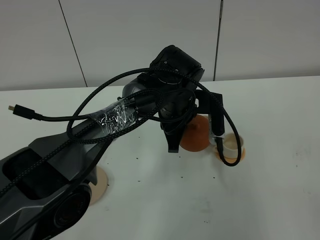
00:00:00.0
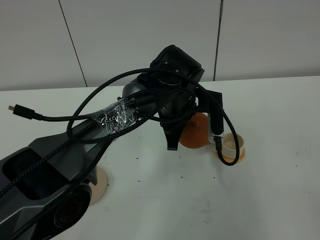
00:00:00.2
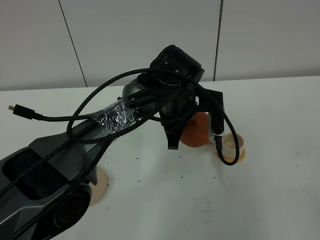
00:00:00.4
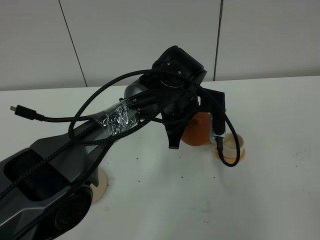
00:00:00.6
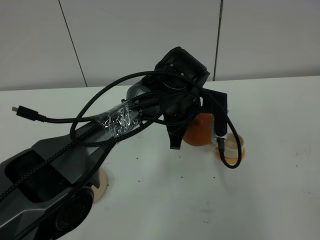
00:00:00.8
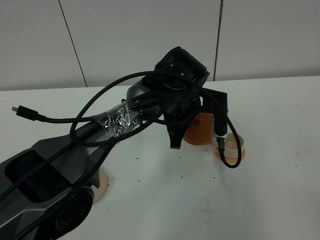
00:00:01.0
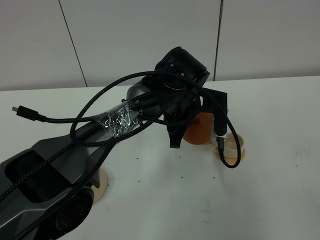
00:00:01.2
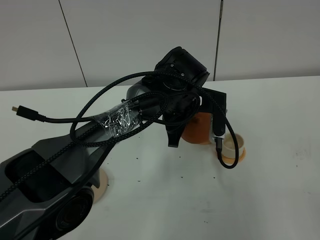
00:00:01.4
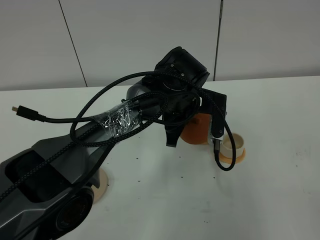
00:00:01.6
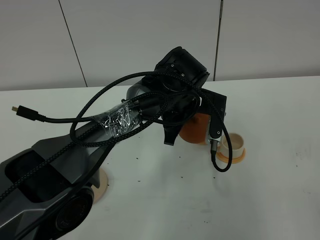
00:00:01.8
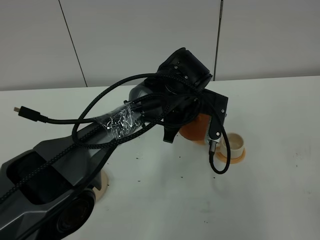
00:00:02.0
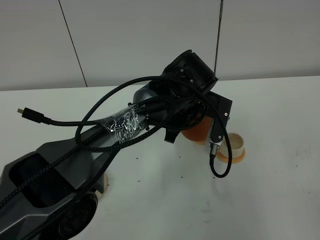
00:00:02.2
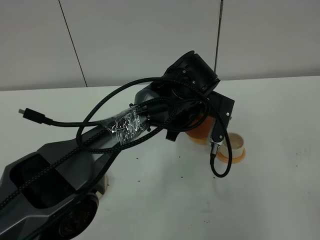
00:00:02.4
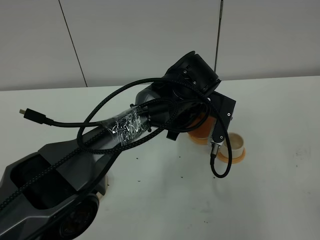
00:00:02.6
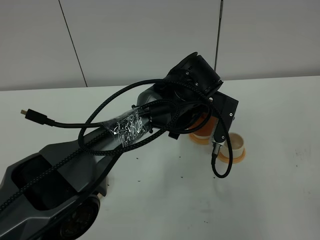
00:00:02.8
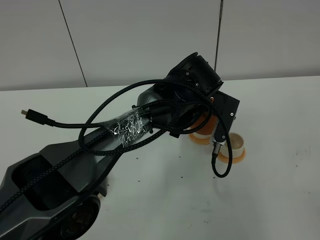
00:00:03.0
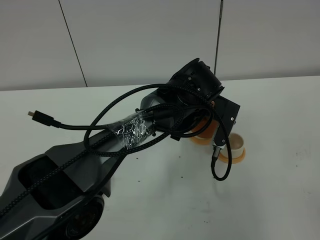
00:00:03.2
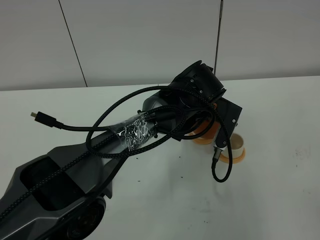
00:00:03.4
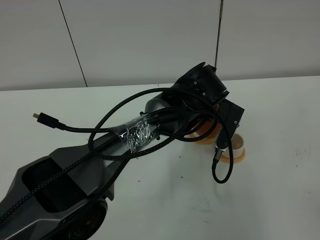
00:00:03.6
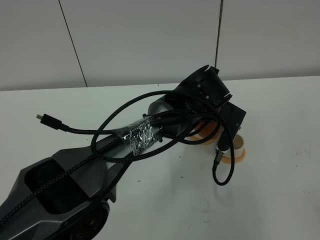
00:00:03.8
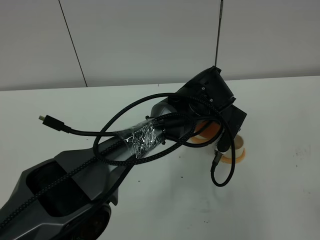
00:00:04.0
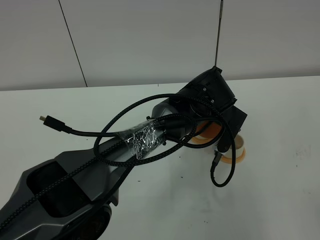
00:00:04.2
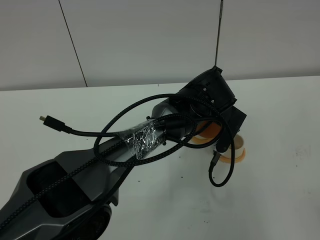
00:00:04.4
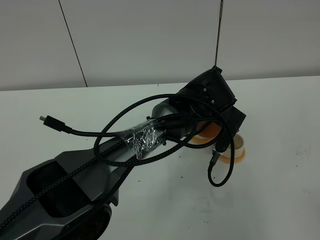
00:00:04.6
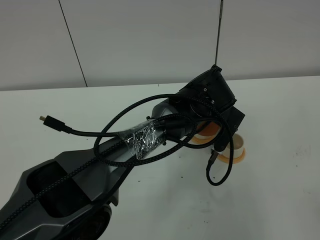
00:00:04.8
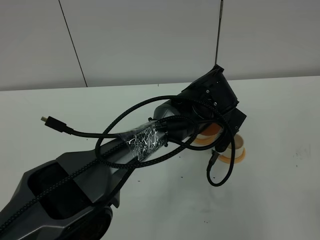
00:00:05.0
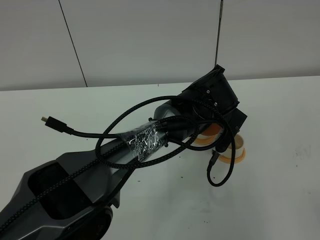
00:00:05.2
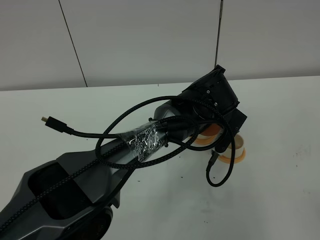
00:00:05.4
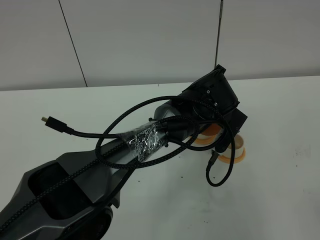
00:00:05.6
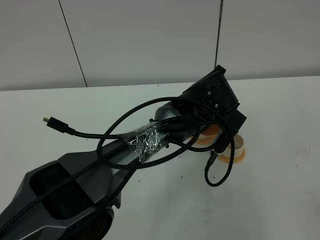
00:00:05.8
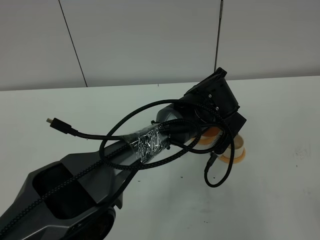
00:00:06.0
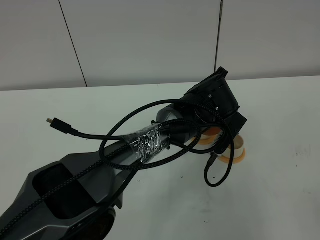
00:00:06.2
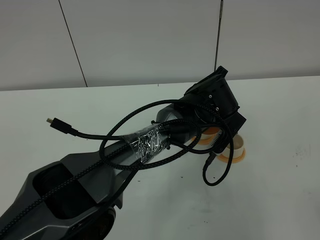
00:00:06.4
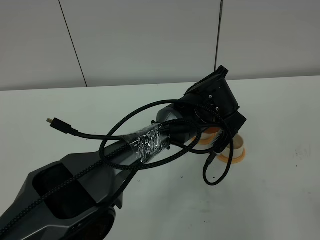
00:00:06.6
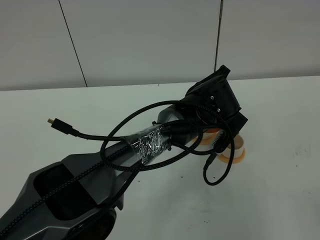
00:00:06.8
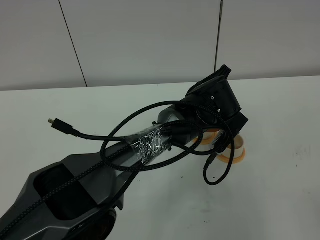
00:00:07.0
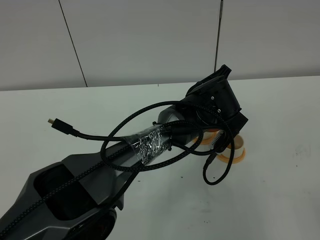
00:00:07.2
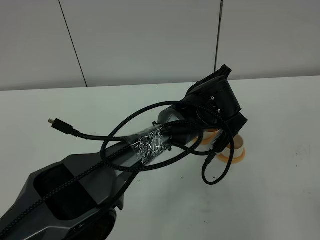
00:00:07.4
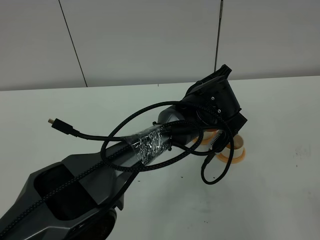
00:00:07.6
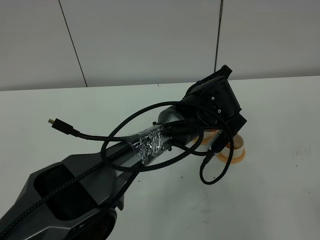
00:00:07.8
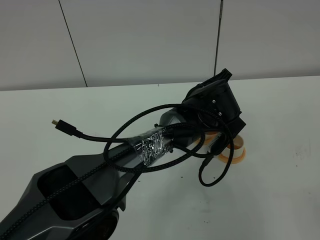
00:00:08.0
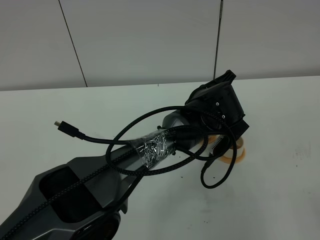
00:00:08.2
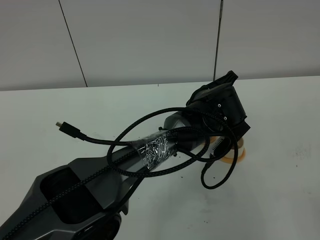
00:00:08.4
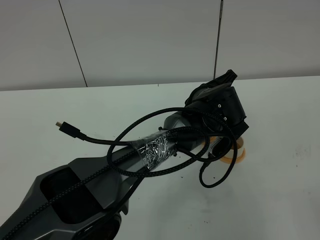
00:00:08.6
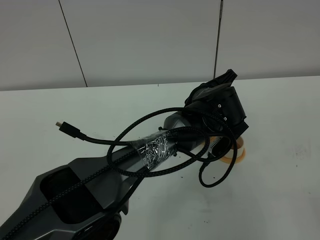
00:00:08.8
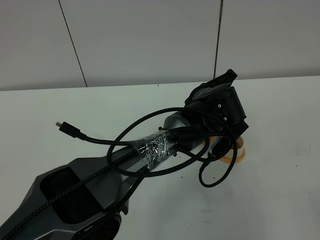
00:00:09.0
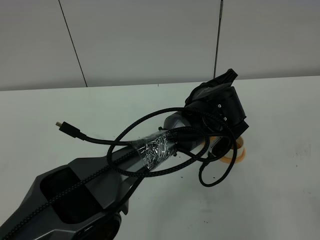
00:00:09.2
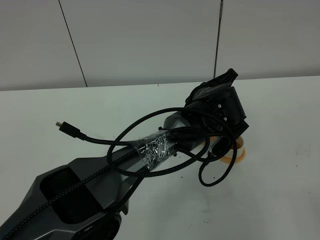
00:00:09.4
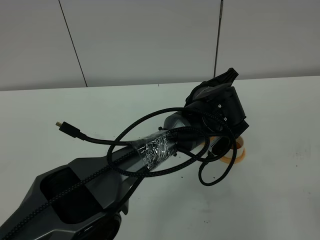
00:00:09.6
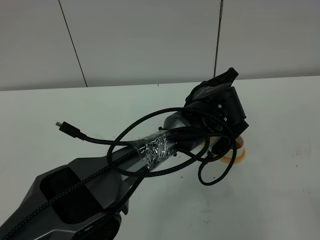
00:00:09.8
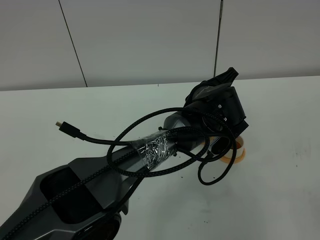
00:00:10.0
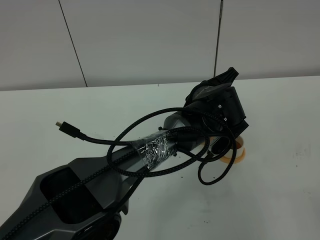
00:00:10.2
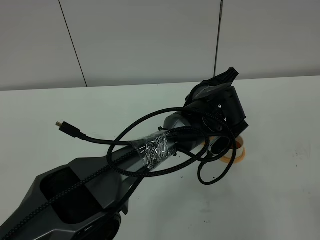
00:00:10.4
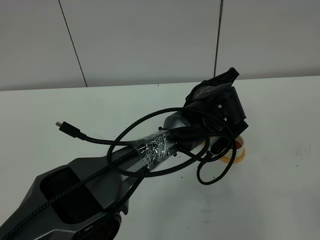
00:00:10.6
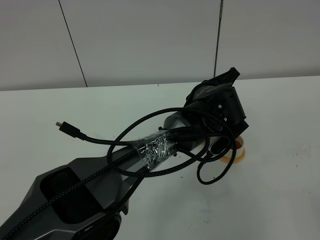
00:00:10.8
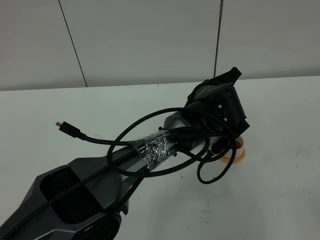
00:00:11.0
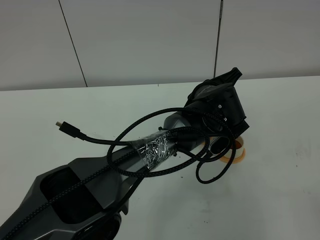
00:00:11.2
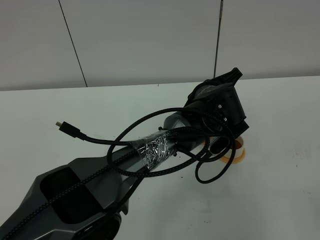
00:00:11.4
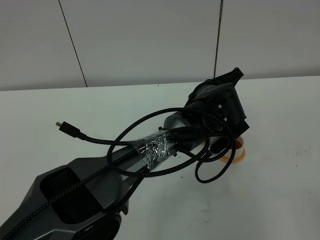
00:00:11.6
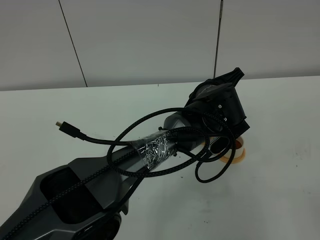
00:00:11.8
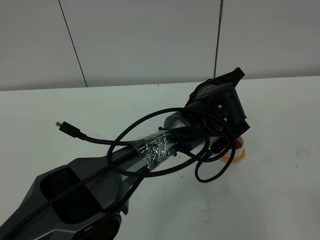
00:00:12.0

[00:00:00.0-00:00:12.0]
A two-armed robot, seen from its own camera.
Task of the whole recording: grasp the brown teapot and pour the tea into the two white teacups one by one, put the brown teapot back in its original place.
00:00:00.0 to 00:00:01.6: There are only small adjustments of the grippers.
00:00:01.6 to 00:00:03.0: The grippers stay close to where they were, moving slightly.
00:00:03.0 to 00:00:06.0: The grippers make only small movements.
00:00:06.0 to 00:00:09.0: There are only small adjustments of the grippers.
00:00:09.0 to 00:00:10.4: Neither gripper changes place.
00:00:10.4 to 00:00:12.0: Both grippers stay about where they are.

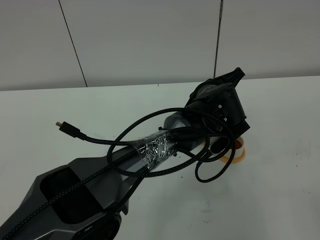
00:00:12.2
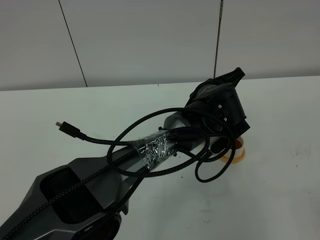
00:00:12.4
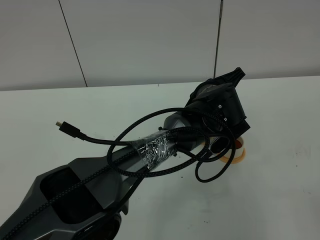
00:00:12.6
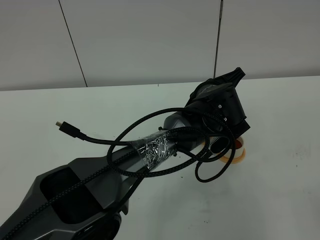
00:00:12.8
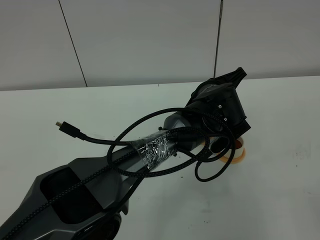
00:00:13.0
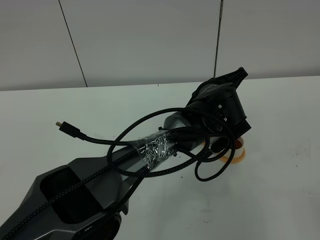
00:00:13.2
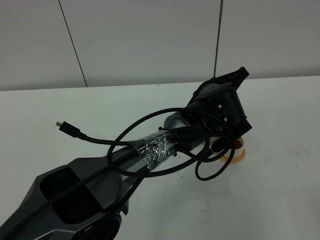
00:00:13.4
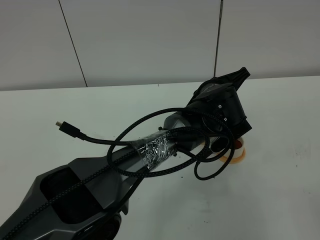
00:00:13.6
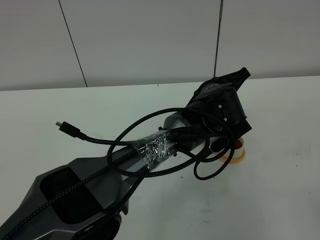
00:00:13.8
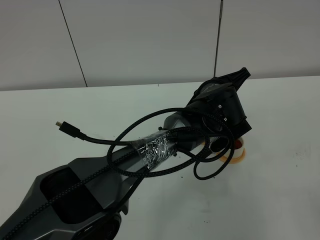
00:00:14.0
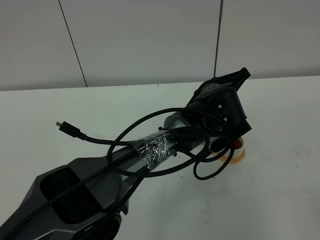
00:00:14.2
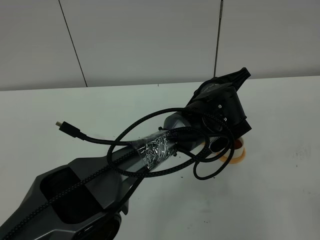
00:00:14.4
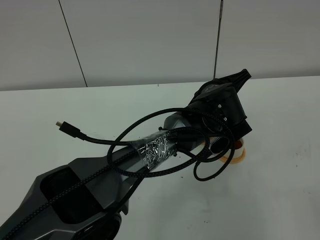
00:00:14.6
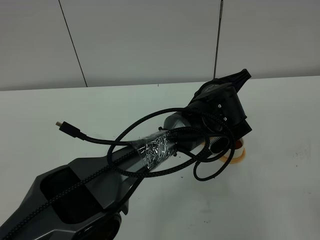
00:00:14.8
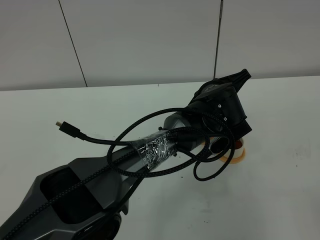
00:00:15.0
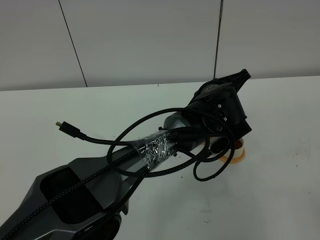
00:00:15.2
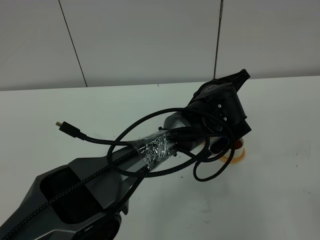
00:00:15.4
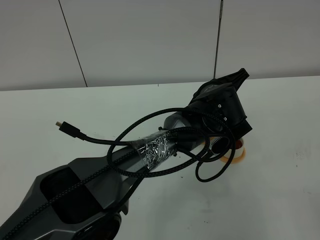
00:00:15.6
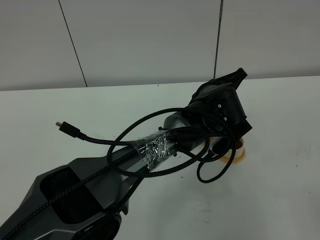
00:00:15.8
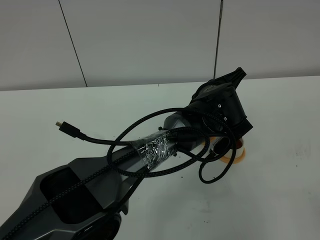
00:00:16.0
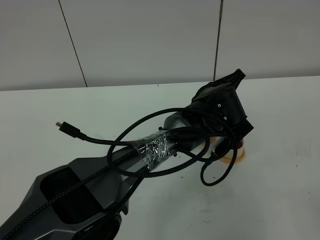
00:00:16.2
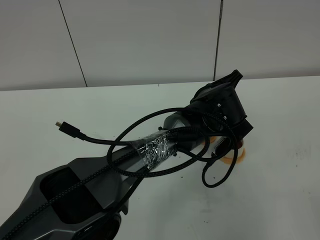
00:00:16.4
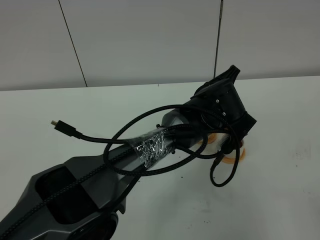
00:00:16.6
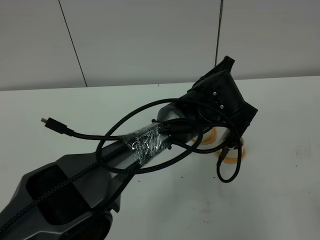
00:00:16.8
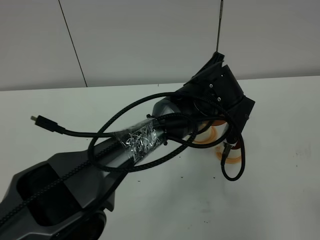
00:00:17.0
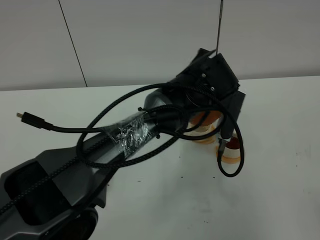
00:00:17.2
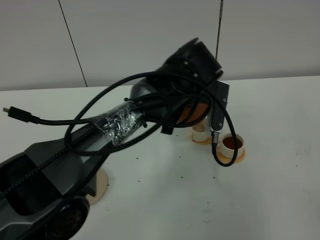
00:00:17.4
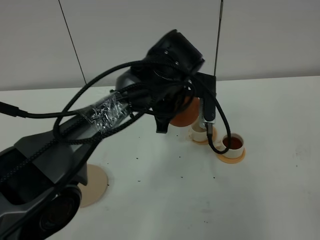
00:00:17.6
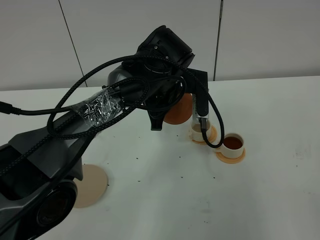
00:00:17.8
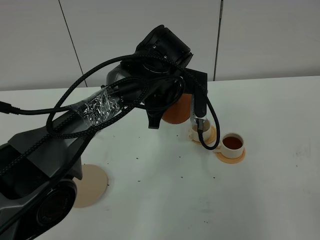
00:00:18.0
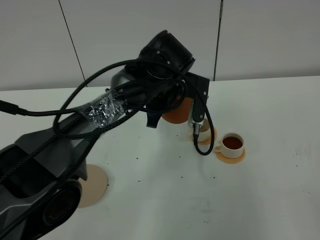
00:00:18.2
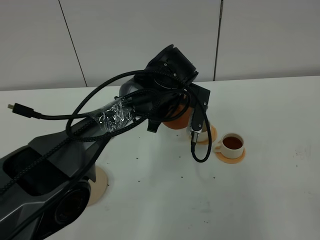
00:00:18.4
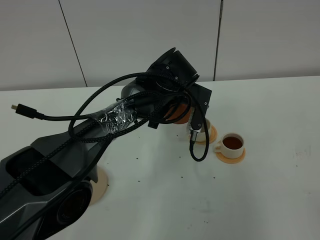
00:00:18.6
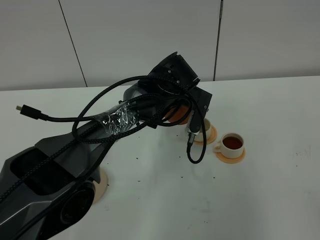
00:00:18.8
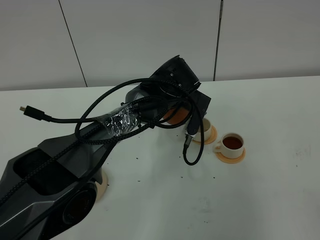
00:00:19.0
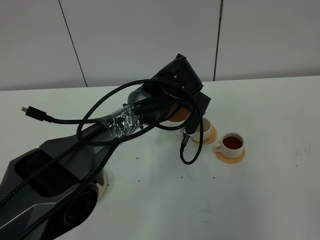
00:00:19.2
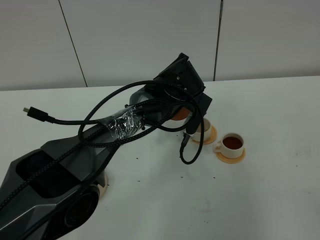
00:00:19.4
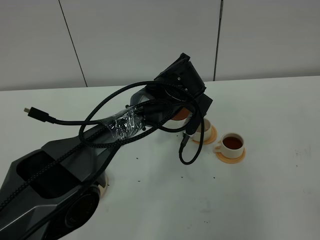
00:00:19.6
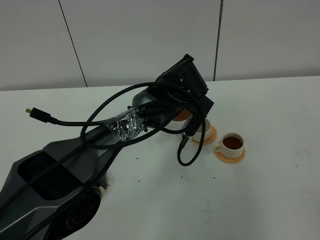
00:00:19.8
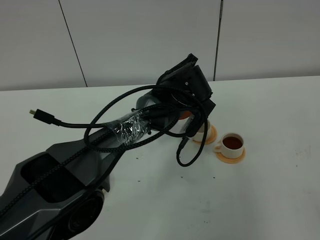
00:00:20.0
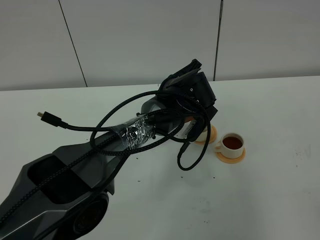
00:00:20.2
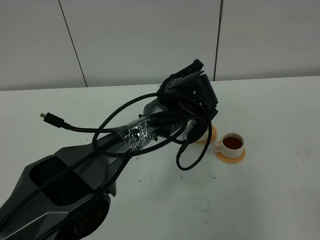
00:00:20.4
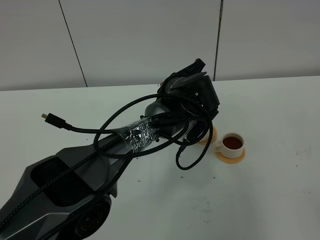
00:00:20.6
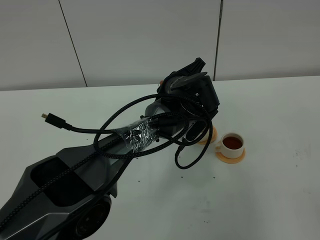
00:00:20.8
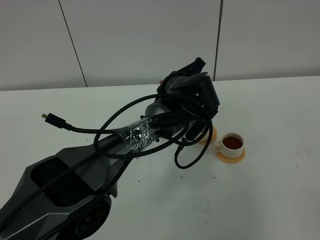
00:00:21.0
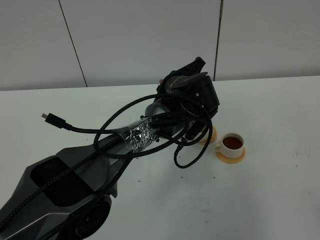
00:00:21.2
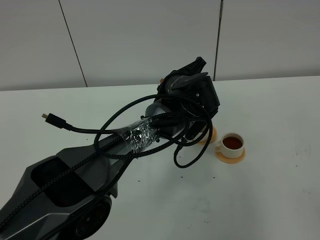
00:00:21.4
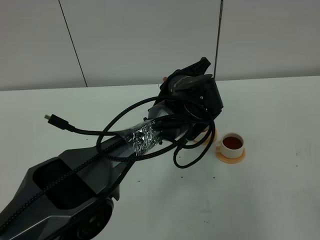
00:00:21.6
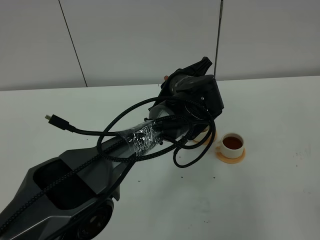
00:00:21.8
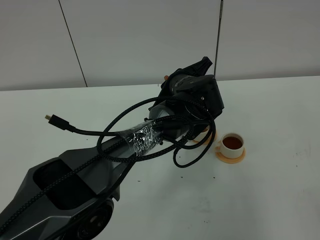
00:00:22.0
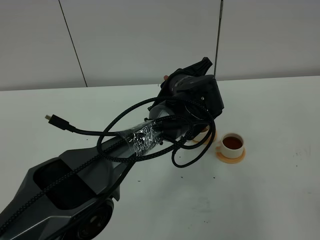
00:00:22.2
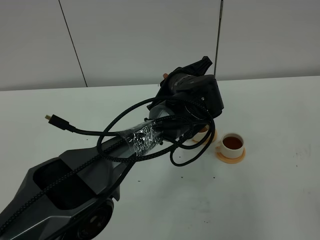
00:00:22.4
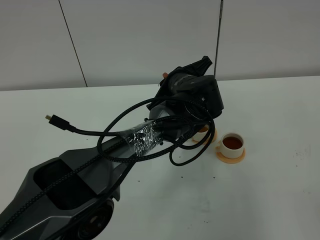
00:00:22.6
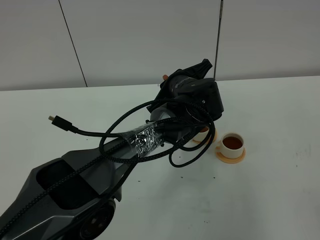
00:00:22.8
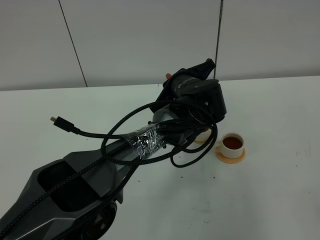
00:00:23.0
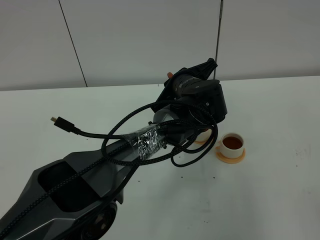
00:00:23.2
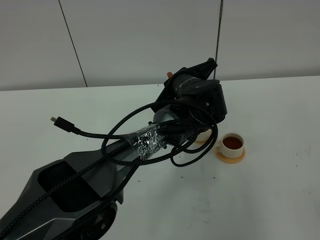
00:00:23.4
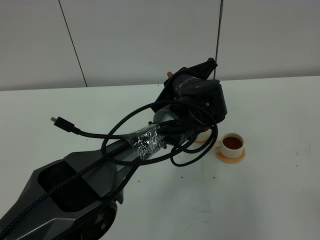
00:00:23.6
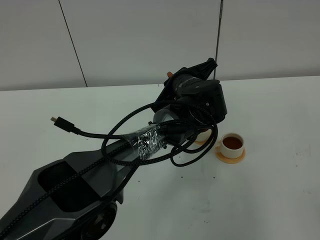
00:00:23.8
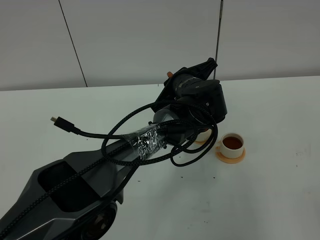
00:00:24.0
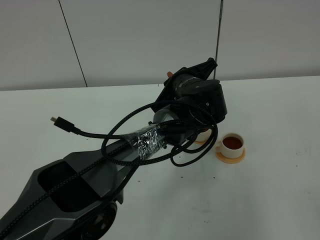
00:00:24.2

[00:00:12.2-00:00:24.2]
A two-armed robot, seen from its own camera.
Task of the whole recording: grasp the brown teapot and pour the tea into the two white teacups one by one, put the brown teapot back in its original place.
Step, 00:00:12.2 to 00:00:17.2: Pour tea into the teacup with the left gripper.
00:00:12.2 to 00:00:15.2: The two grippers keep their place.
00:00:15.2 to 00:00:16.6: The grippers move only a little.
00:00:16.6 to 00:00:18.2: The left gripper heads to the left, covering about 10 cm.
00:00:19.8 to 00:00:22.6: The grippers make only small movements.
00:00:22.6 to 00:00:24.2: The two grippers keep their place.
